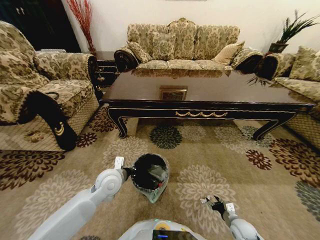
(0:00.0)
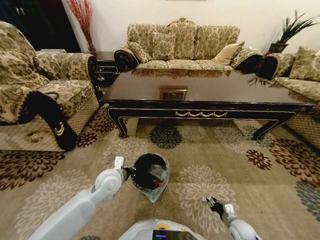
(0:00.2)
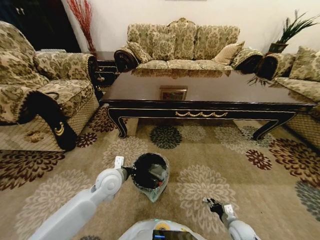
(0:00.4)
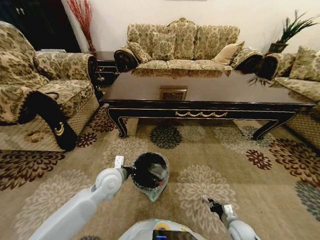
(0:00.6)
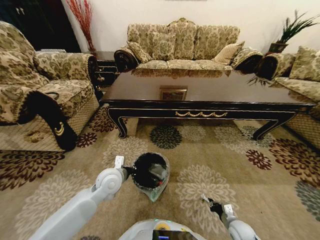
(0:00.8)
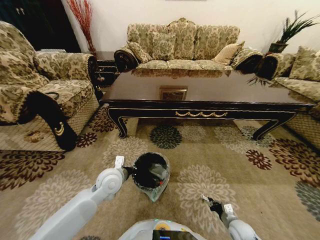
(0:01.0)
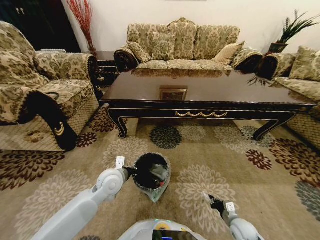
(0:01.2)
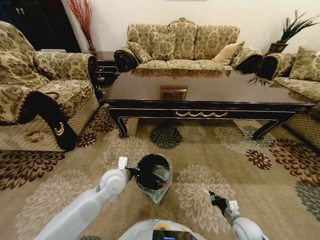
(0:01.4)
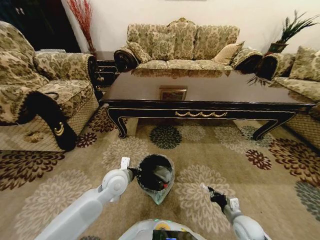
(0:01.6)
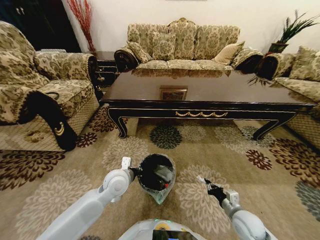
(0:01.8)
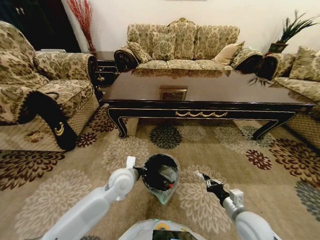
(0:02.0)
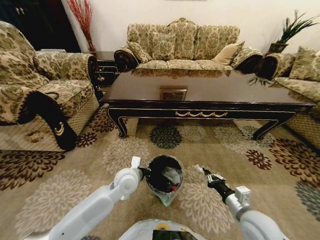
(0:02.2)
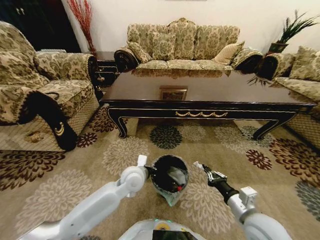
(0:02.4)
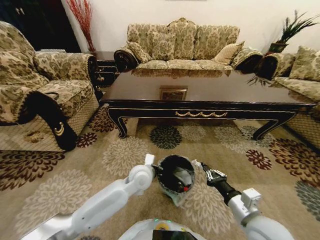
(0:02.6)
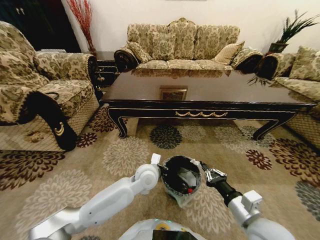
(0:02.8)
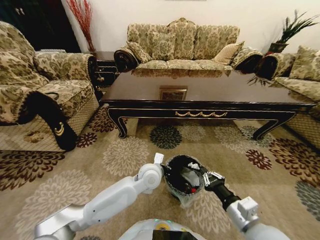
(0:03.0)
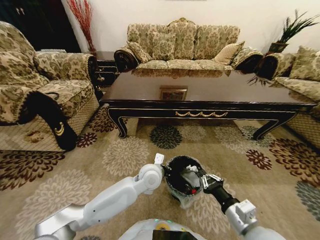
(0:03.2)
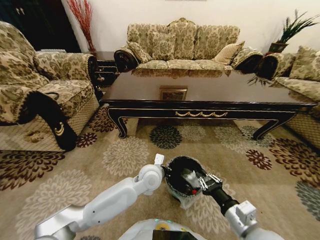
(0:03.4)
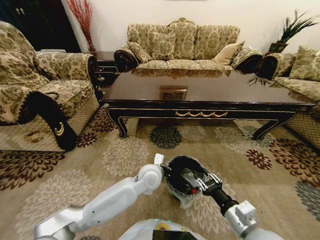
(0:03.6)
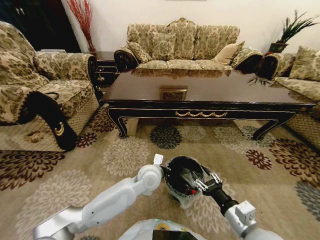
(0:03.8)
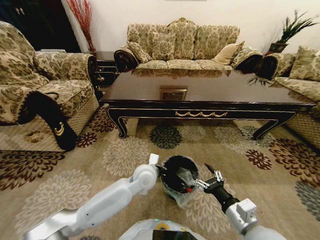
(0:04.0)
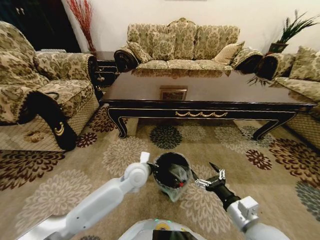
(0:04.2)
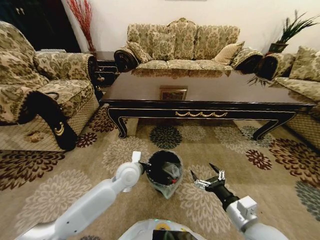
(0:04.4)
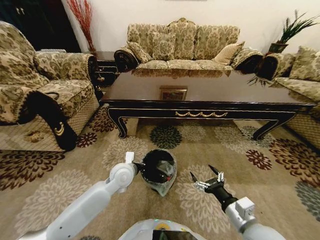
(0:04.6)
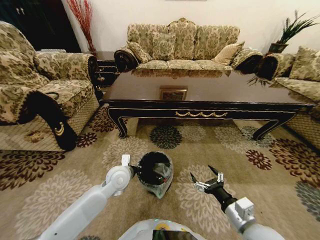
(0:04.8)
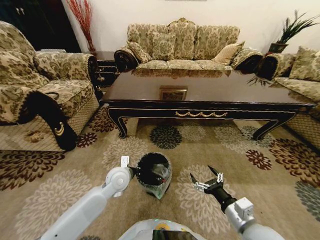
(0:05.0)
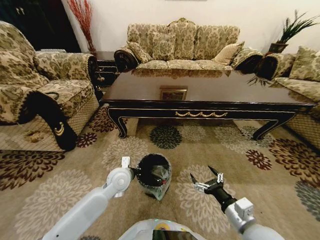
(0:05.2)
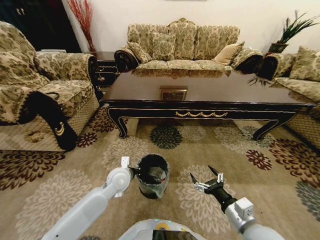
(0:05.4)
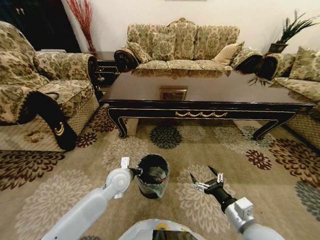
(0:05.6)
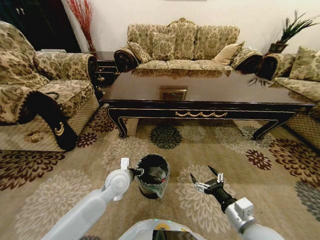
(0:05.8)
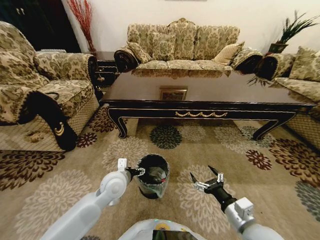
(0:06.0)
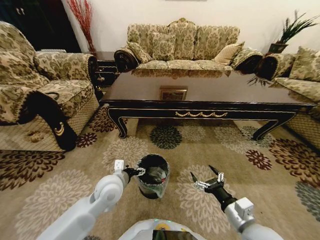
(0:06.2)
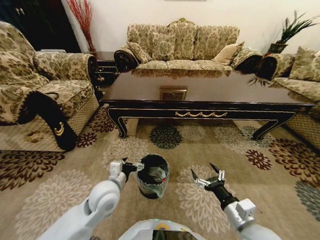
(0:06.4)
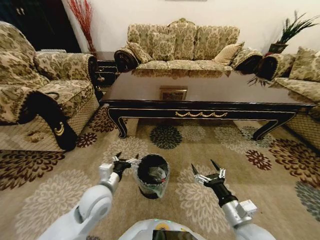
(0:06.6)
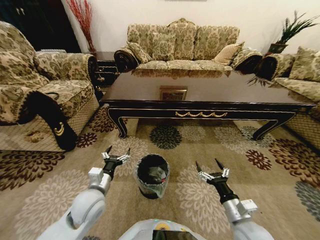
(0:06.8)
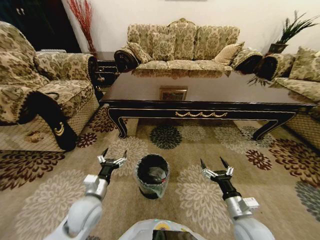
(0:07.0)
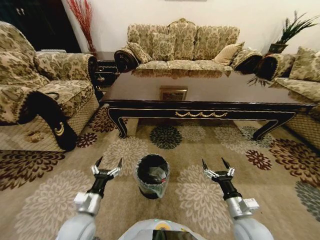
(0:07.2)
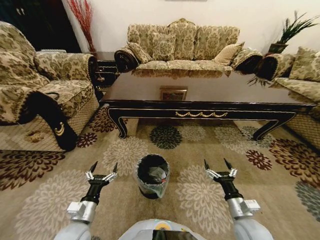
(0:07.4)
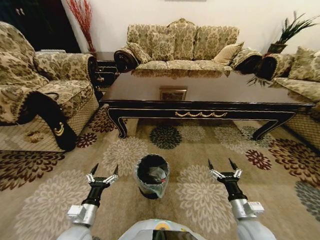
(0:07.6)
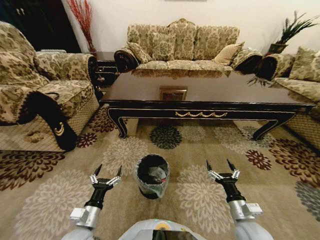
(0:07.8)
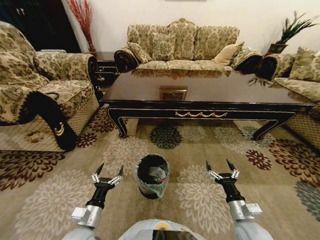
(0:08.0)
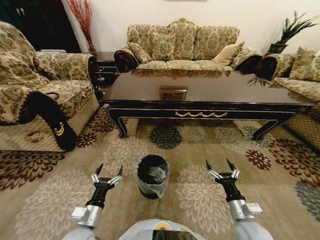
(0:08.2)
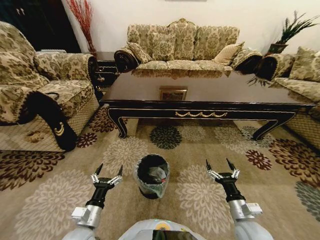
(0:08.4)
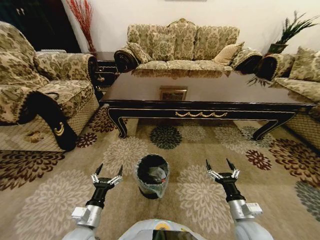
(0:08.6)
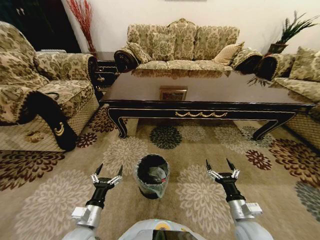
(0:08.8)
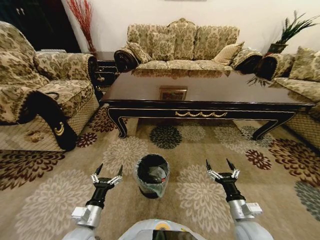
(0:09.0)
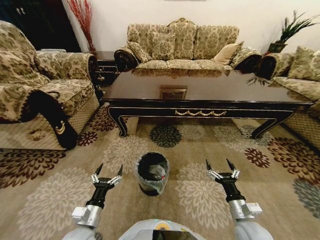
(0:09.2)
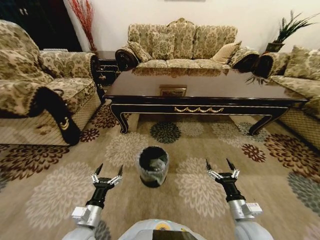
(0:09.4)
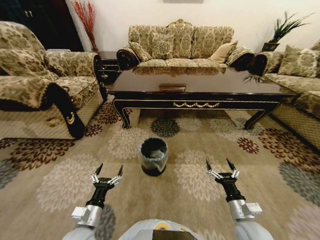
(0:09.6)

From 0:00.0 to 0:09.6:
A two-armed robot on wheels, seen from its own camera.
Task of the whole recording: Move to the front of the table and pick up the trash from the floor, then place it into the trash bin.
From 0:00.0 to 0:01.6: The right gripper travels upward by about 10 cm, and closes its fingers.
From 0:01.6 to 0:03.2: The right gripper shifts roughly 20 cm upward and to the left. Meanwhile the left gripper heads to the right, covering some 15 cm.
From 0:03.2 to 0:04.8: The left gripper shifts some 15 cm to the left. Meanwhile the right gripper opens up.
From 0:04.8 to 0:06.4: The left gripper moves backward, roughly 10 cm, and opens its fingers.
From 0:06.4 to 0:08.0: The left gripper moves backward, downward and to the left, some 15 cm. The right gripper goes approximately 5 cm downward.
